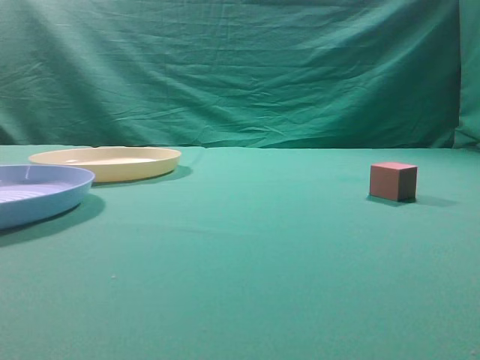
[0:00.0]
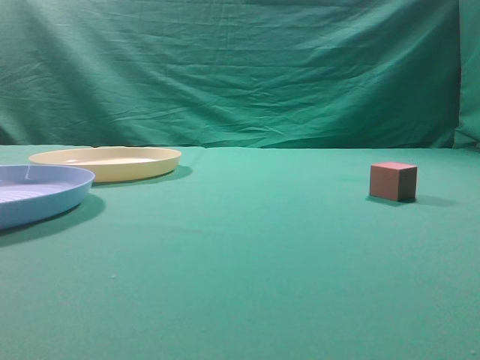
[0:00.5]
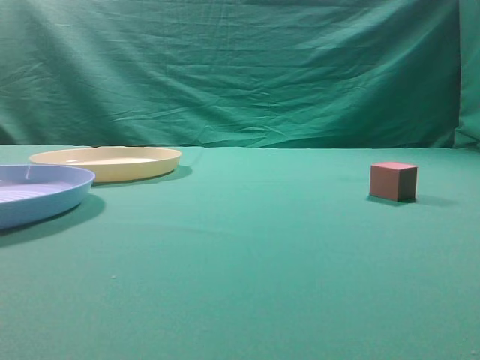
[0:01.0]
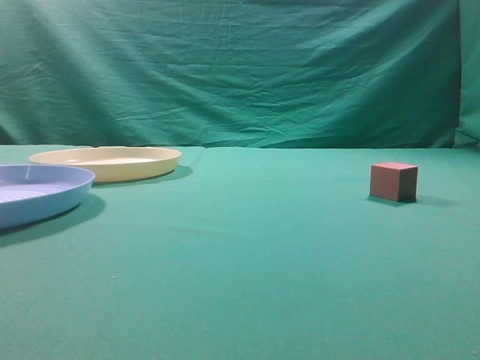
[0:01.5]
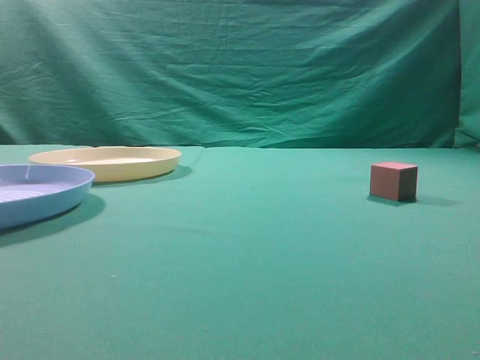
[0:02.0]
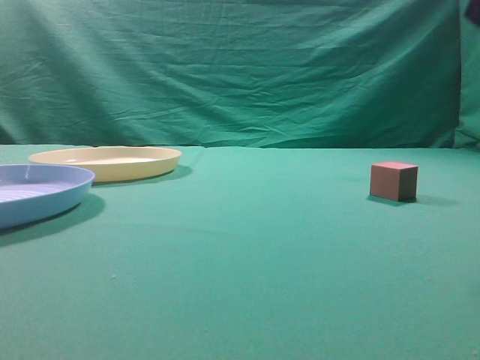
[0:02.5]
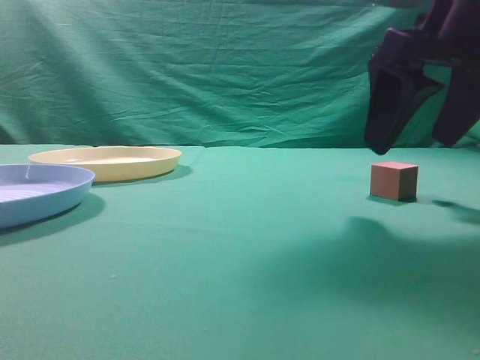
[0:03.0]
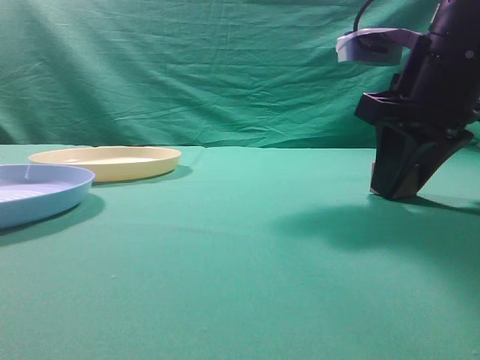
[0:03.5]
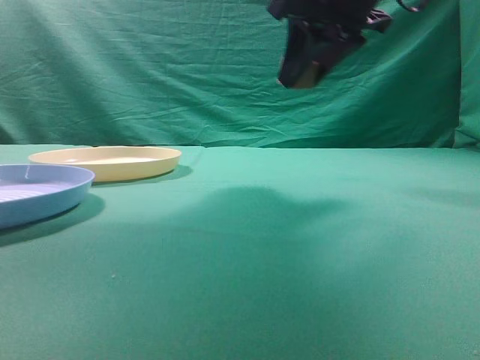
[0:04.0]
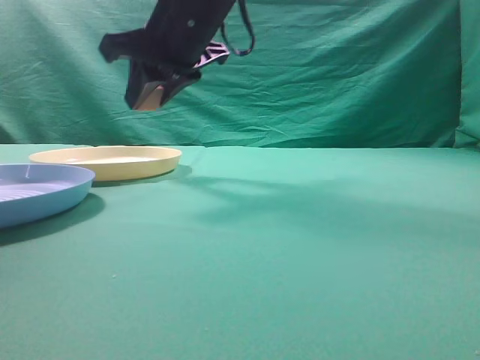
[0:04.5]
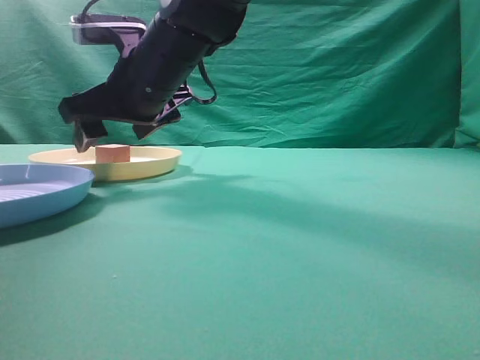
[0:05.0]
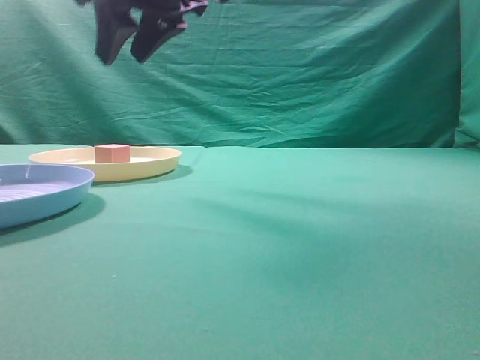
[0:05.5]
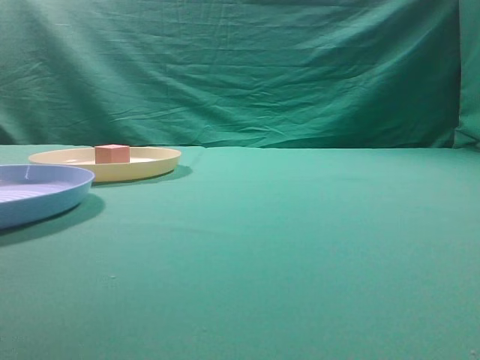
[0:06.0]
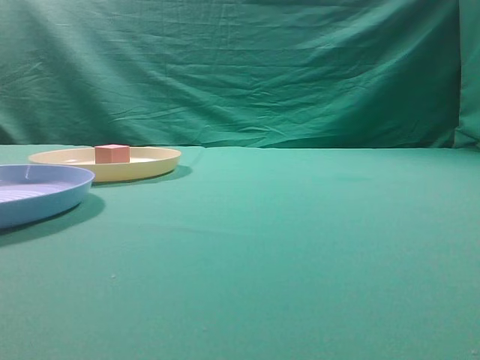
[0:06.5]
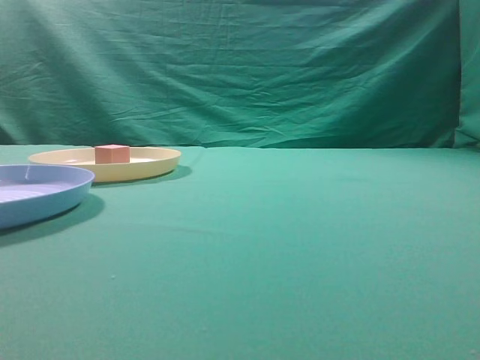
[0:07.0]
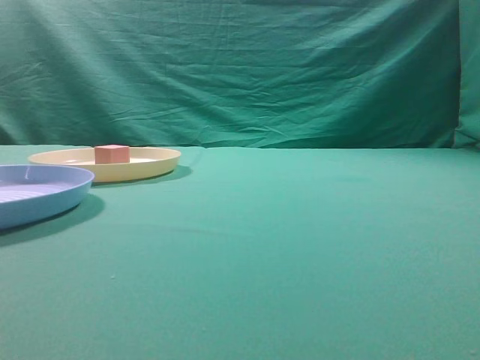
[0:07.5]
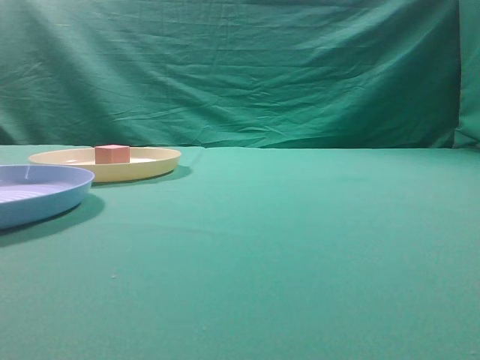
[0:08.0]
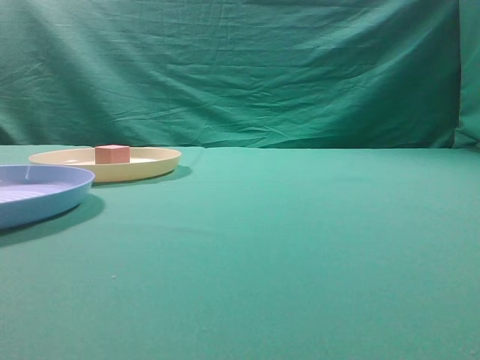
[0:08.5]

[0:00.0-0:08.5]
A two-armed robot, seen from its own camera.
Task of the whole recording: pick up the cube block from the table and put it on the plate.
Step, 0:00.0 to 0:03.5: Grasp the small cube on the table.
Step, 0:04.0 to 0:05.0: Place it into the yellow plate.
0:02.0 to 0:04.0: The right gripper shifts some 30 cm forward and to the left, and opens its fingers.
0:04.0 to 0:06.5: The right gripper goes about 25 cm upward, backward and to the right, and closes.
